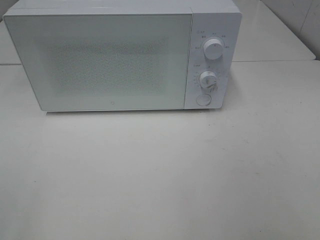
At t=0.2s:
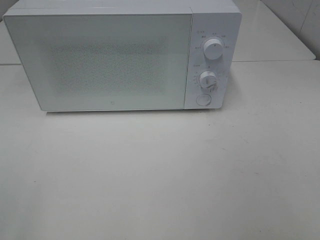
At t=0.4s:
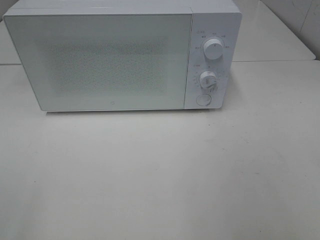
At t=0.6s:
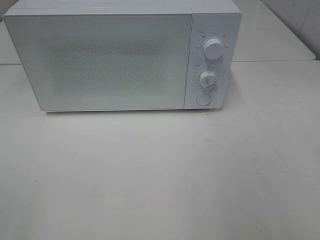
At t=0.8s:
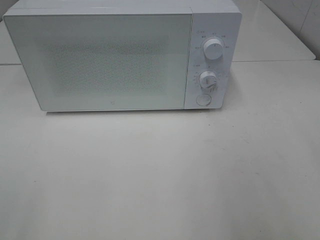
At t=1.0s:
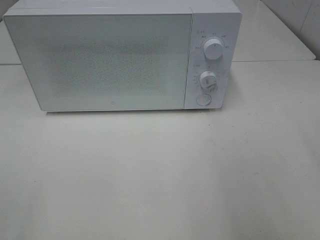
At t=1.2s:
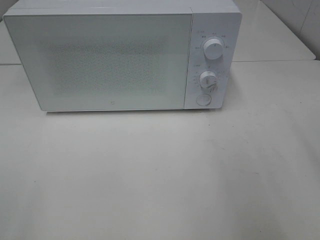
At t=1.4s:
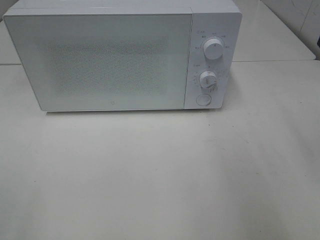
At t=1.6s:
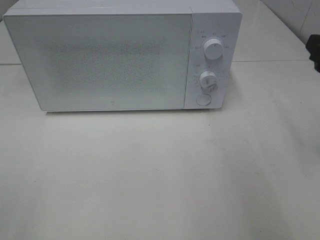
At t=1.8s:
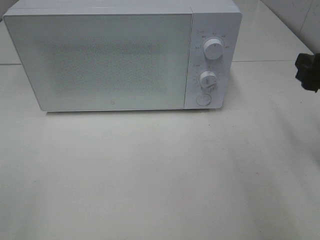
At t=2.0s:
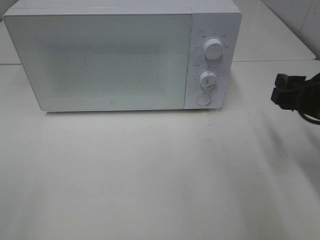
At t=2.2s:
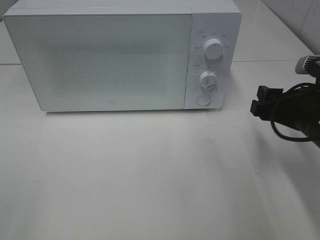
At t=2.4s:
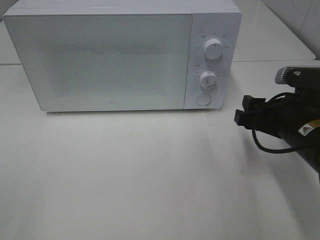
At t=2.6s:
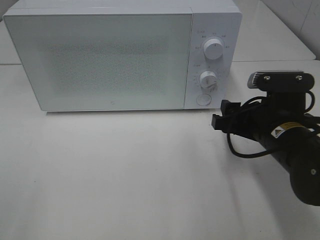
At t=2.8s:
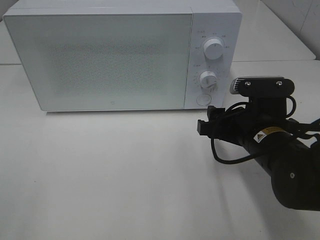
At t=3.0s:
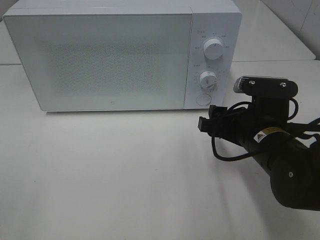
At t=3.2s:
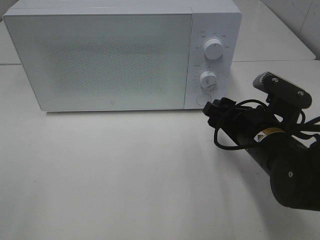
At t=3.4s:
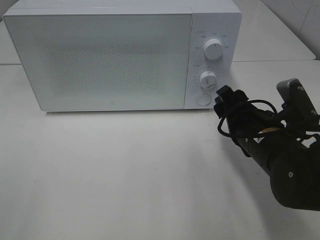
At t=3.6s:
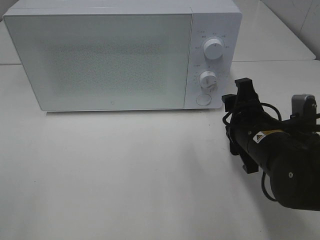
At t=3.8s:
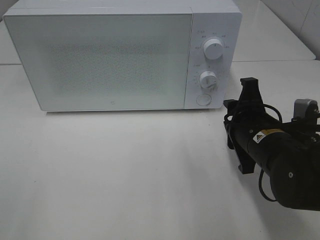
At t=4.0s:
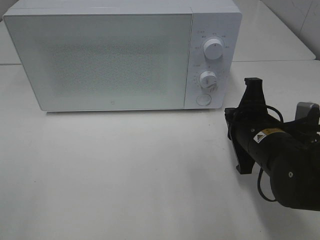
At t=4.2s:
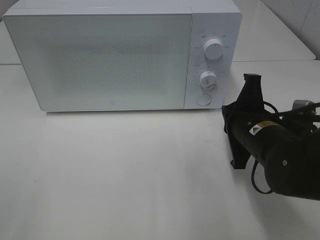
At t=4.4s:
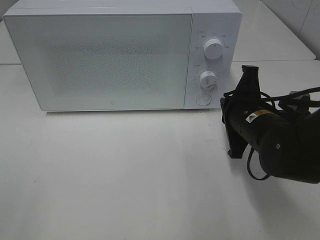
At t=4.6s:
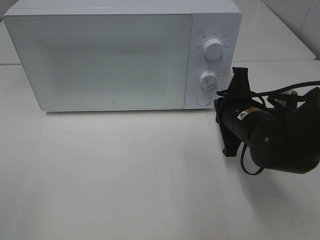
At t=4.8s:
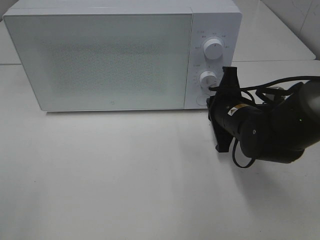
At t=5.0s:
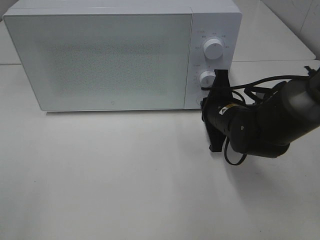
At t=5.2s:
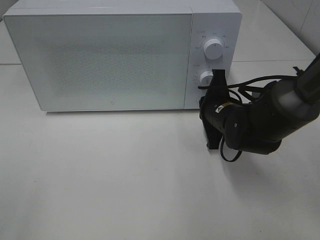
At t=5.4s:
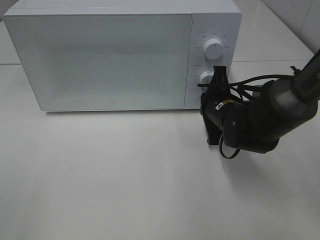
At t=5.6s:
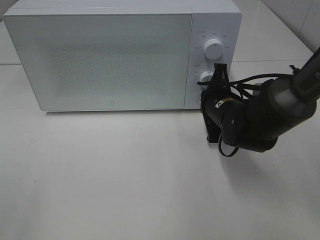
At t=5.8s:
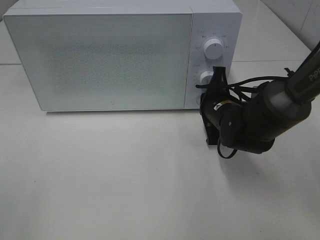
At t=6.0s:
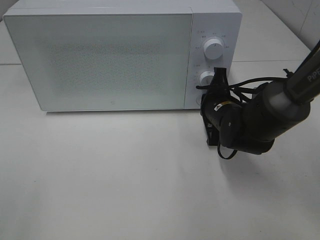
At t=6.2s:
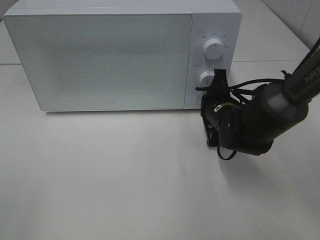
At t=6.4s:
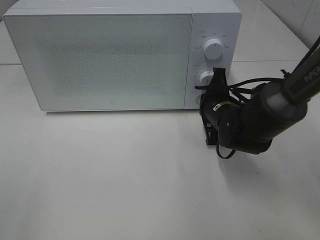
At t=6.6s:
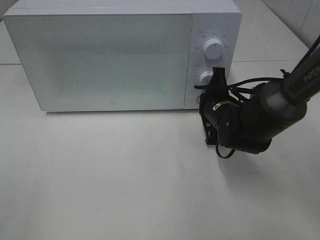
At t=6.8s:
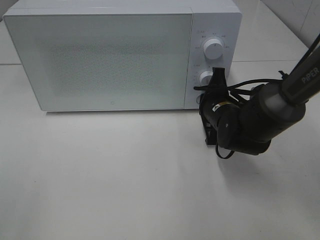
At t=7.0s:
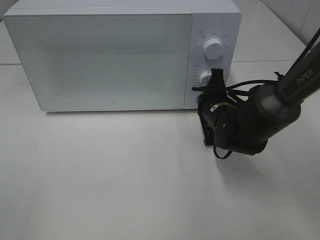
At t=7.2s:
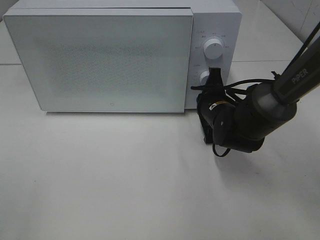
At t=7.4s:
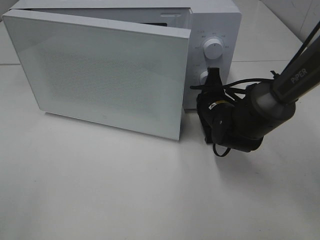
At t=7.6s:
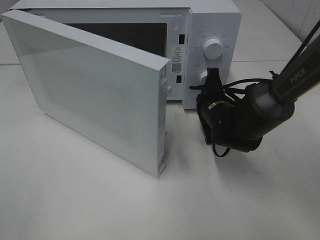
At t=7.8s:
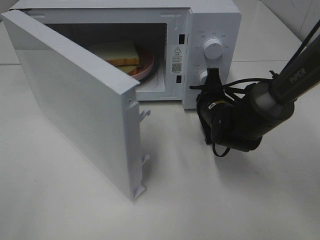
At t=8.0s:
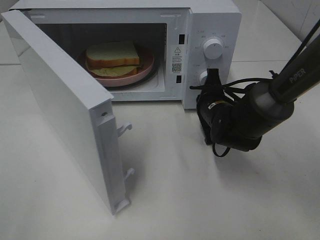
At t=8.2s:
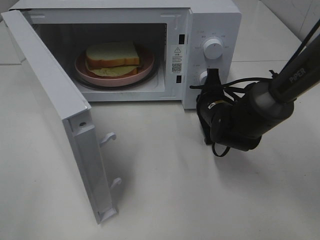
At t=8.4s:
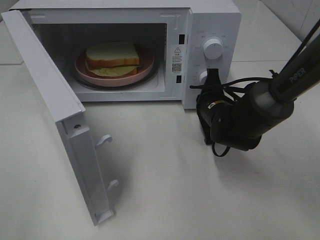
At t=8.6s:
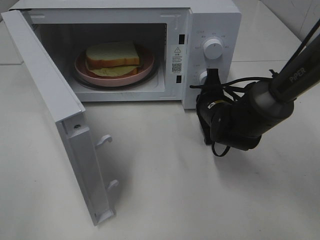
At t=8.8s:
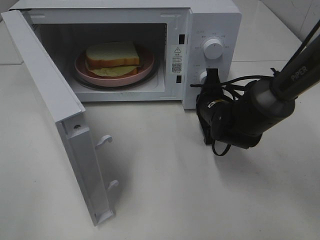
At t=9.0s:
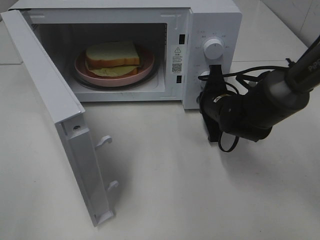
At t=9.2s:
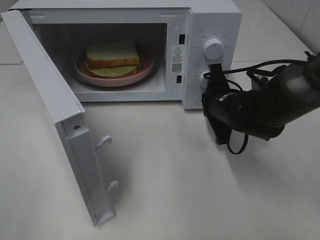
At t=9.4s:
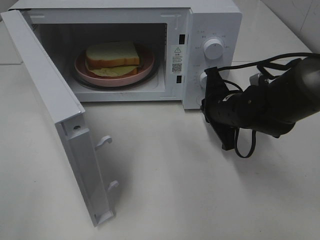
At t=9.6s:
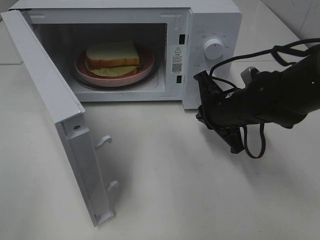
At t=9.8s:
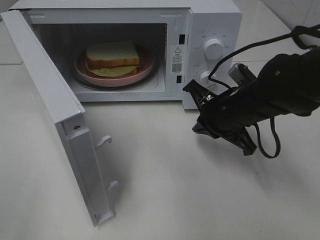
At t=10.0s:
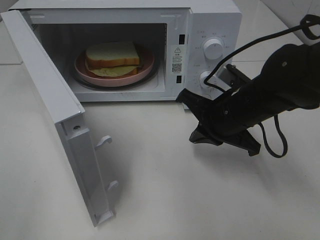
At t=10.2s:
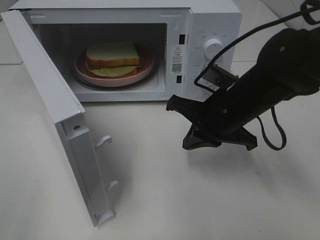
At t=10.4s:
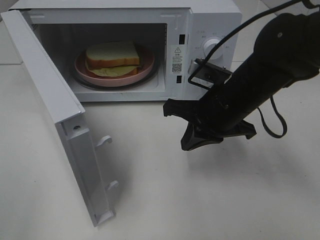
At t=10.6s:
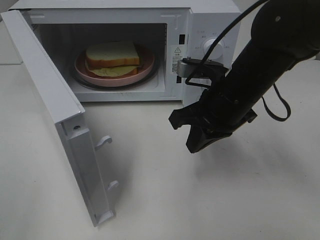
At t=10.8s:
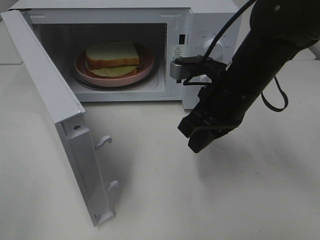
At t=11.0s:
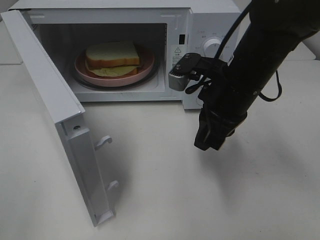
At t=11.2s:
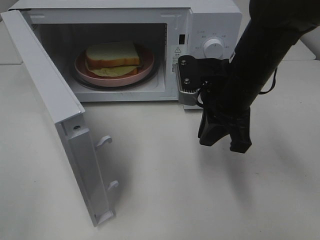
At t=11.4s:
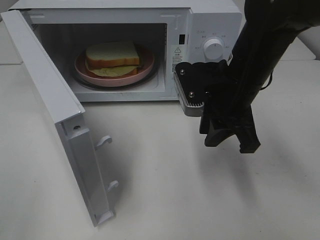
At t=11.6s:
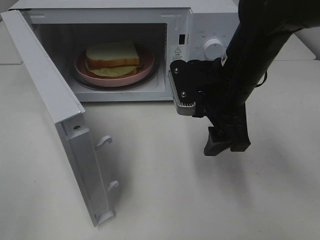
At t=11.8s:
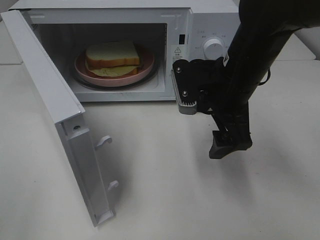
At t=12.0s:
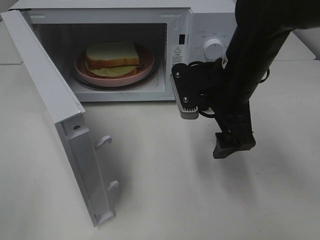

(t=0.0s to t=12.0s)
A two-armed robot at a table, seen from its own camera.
Task of the whole recording: Heat Sandwich.
Step, t=0.0s - t=9.4s: Right hand: press the switch.
t=0.0s - t=1.6s: The right gripper is displaced forward by about 20 cm.
t=1.6s - t=3.0s: The right gripper travels to the left and downward by approximately 15 cm.
t=3.0s - t=4.4s: The right gripper closes up.
t=4.4s - t=6.0s: The right gripper shifts about 5 cm forward.
t=9.0s - t=10.4s: The right gripper heads upward and backward, covering some 10 cm.
t=10.4s - t=12.0s: The right gripper opens its fingers.

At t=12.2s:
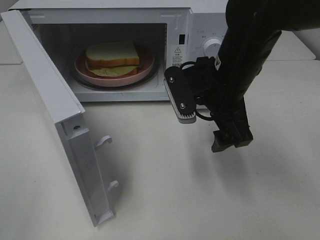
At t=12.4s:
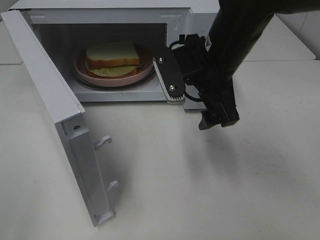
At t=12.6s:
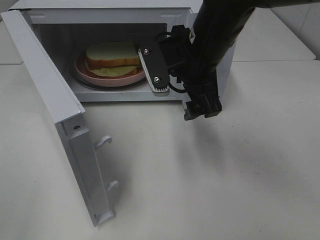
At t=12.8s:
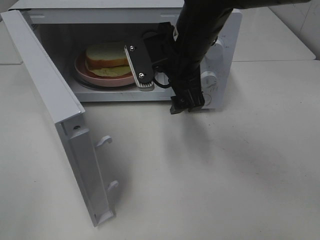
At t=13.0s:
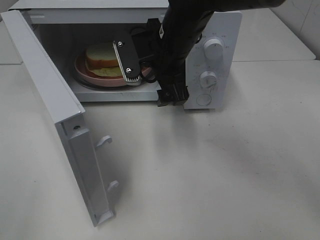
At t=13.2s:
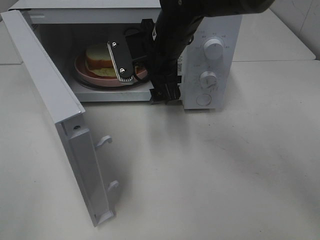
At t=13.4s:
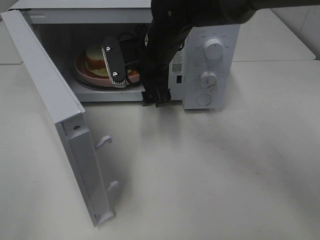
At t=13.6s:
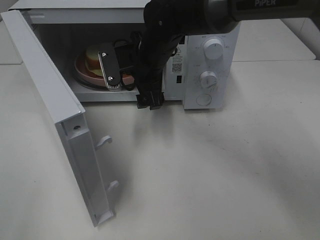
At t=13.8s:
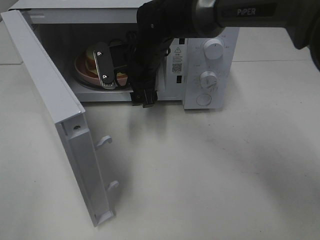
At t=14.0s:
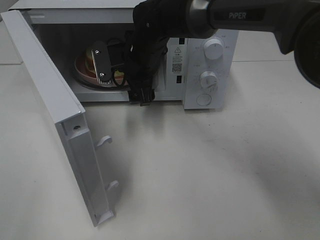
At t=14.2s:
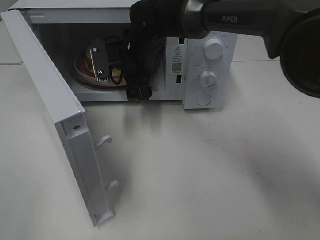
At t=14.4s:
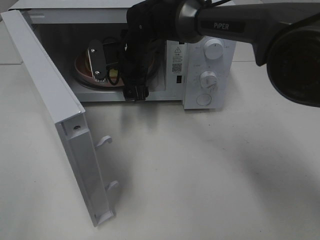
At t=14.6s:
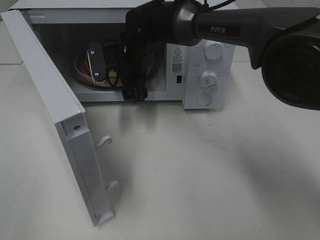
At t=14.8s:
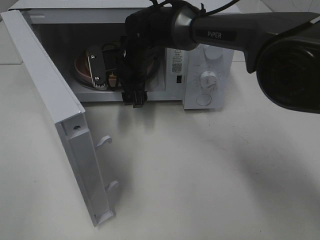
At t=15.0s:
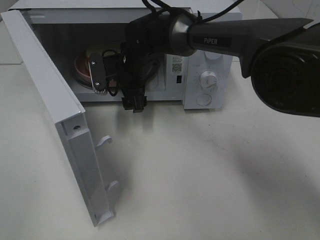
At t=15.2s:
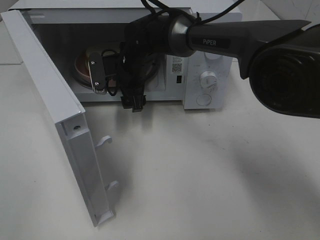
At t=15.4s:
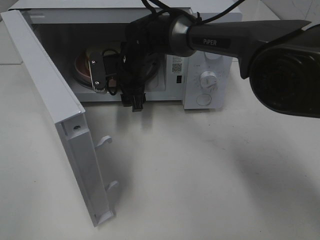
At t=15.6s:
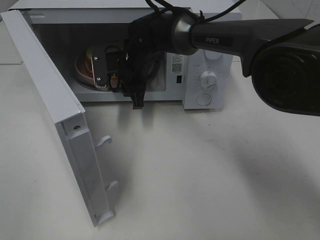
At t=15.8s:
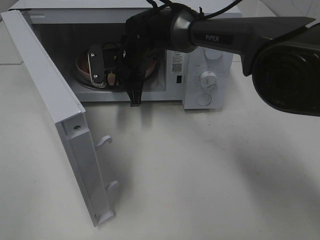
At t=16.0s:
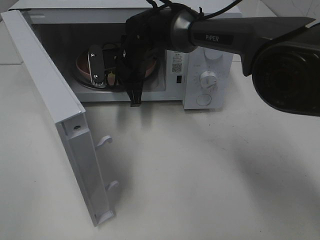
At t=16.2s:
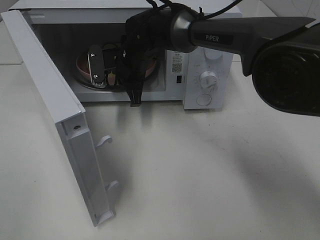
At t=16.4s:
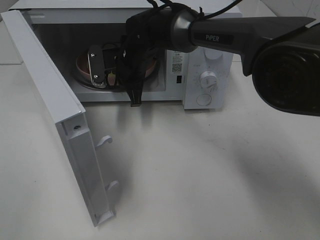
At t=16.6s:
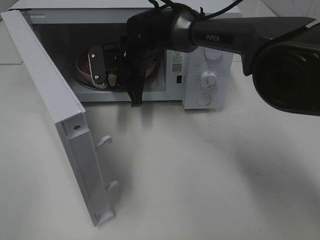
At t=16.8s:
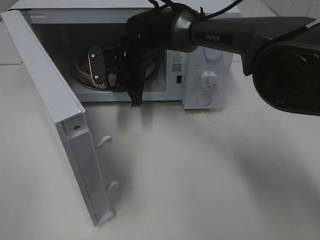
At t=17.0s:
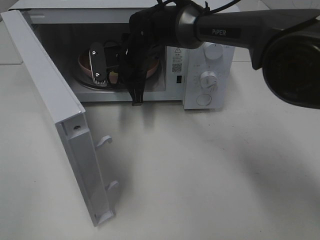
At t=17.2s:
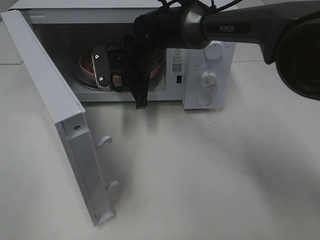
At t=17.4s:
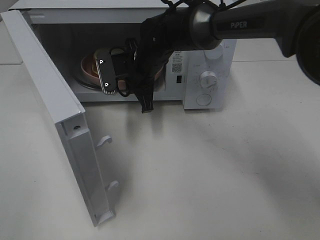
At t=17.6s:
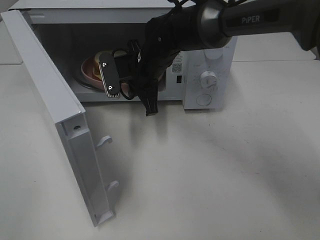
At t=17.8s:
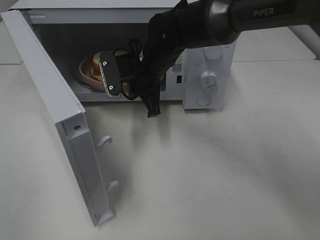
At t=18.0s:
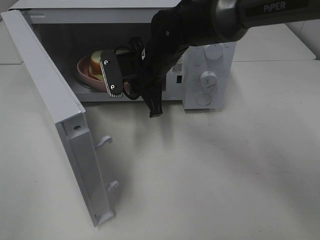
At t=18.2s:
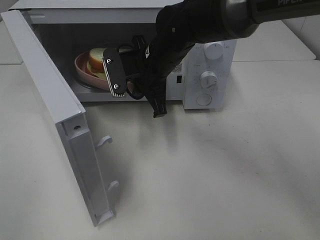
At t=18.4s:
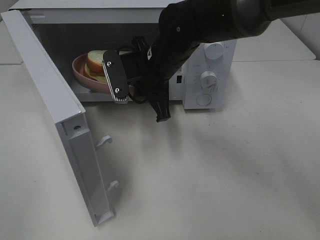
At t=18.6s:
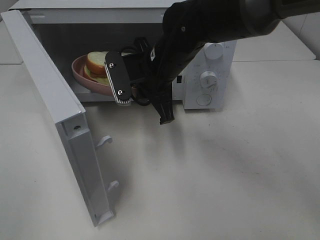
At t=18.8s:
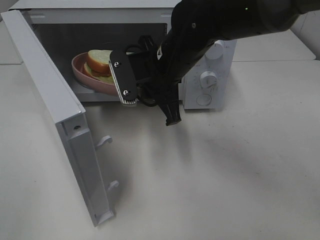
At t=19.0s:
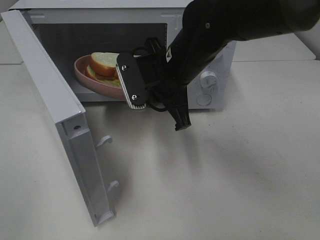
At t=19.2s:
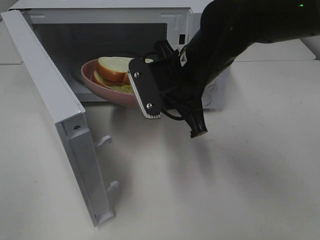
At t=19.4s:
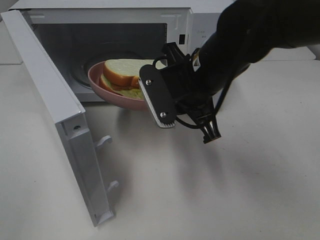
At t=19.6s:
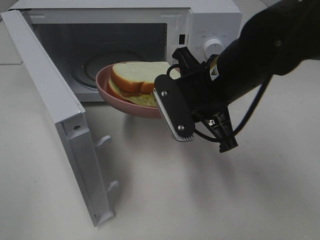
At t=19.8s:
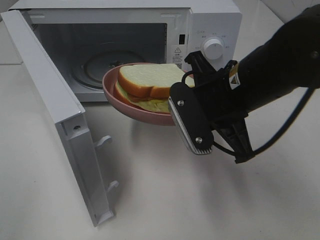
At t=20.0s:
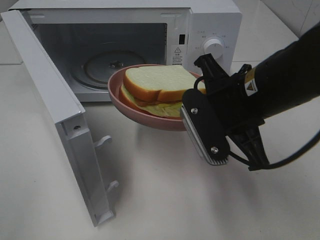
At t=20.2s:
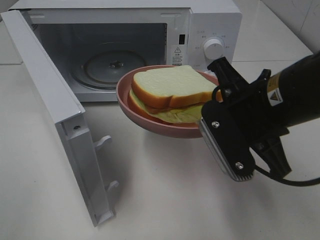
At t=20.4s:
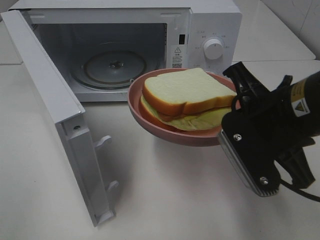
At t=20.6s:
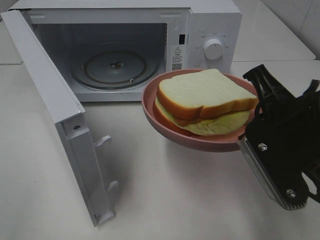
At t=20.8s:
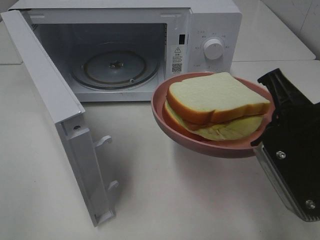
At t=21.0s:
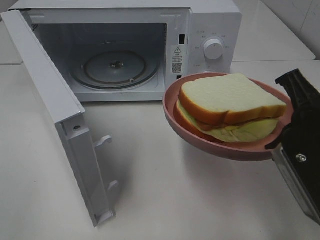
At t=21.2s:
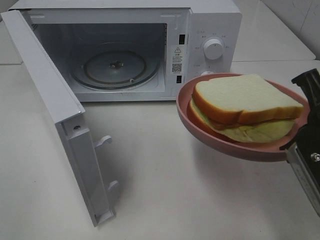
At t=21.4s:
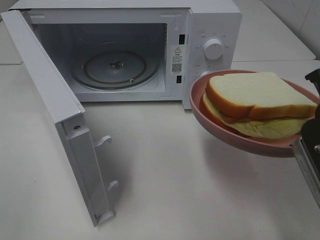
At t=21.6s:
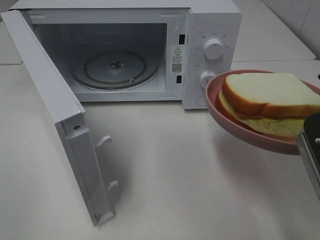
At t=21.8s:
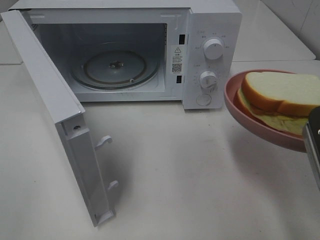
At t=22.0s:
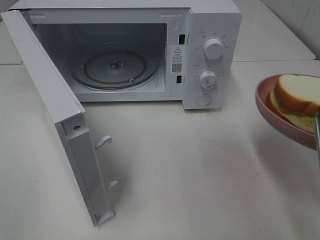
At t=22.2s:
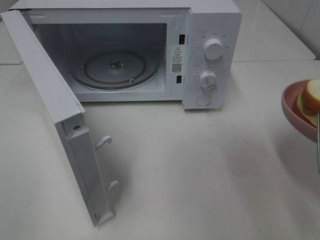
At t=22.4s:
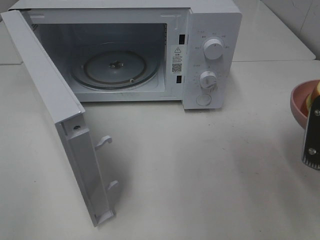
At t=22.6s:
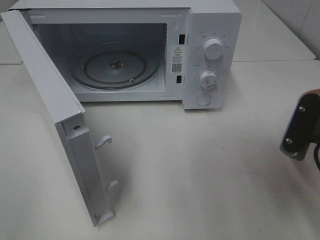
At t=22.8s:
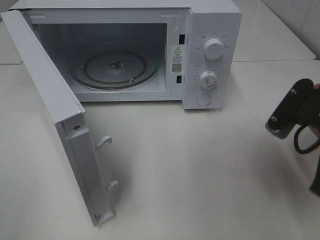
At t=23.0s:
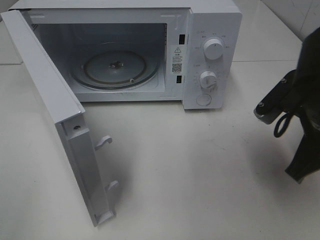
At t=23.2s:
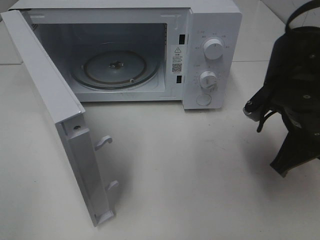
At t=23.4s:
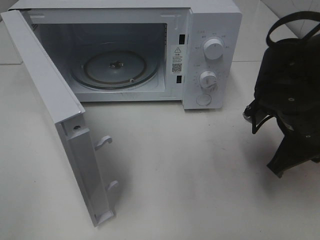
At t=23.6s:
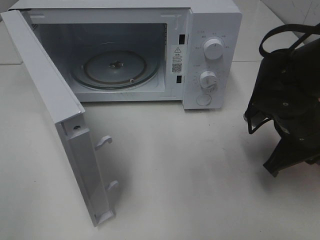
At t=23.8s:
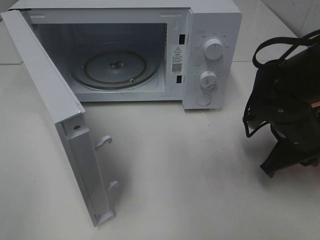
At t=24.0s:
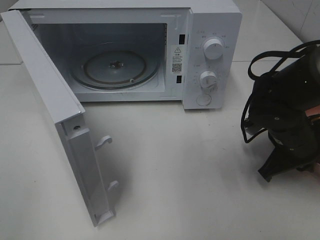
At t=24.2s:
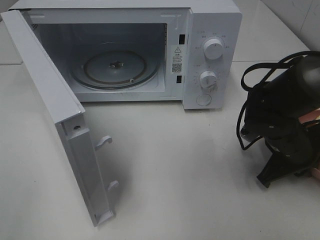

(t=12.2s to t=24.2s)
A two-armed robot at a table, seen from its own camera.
Task of the whole recording: Heat Sandwich.
Step, t=12.2s - t=16.4s: Right hand: grab the plate with the sandwich.
t=12.2s - t=13.8s: The right gripper goes roughly 15 cm forward and to the left.
t=13.8s - t=15.2s: The right gripper ends up roughly 5 cm from where it was.
t=15.2s - t=16.6s: The right gripper closes up.
t=16.6s - t=18.2s: The right gripper travels backward by roughly 5 cm.
t=18.2s - t=19.8s: The right gripper is displaced backward and to the right by about 15 cm.
t=19.8s - t=21.2s: The right gripper moves backward and to the right, roughly 15 cm.
t=21.2s - t=22.6s: The right gripper shifts by some 5 cm.
t=22.6s - t=24.2s: The right gripper moves downward and forward, roughly 15 cm.
